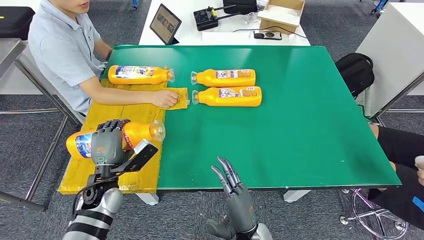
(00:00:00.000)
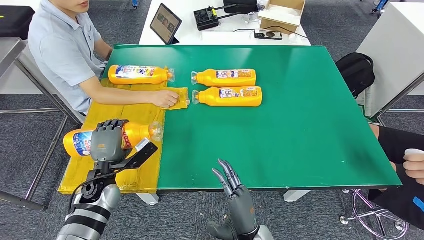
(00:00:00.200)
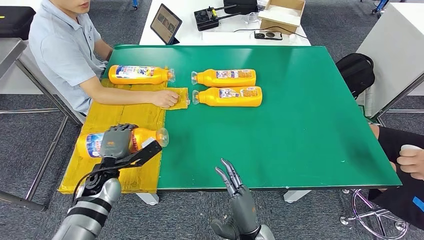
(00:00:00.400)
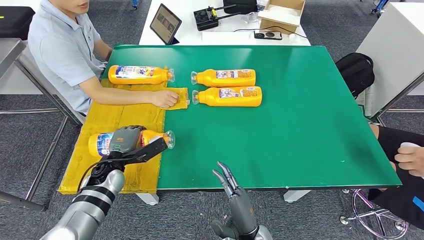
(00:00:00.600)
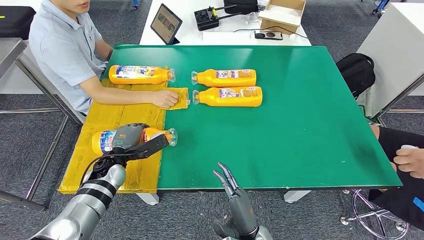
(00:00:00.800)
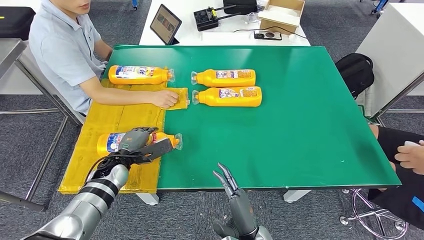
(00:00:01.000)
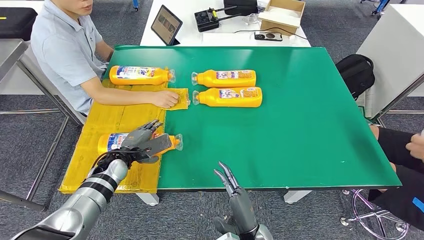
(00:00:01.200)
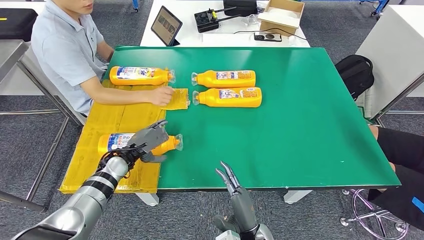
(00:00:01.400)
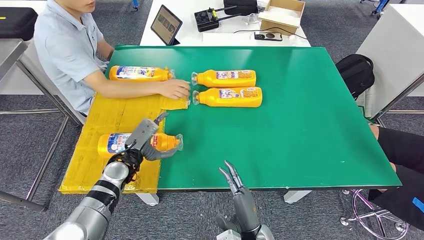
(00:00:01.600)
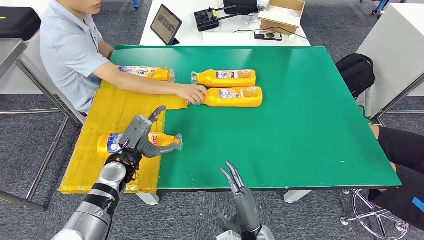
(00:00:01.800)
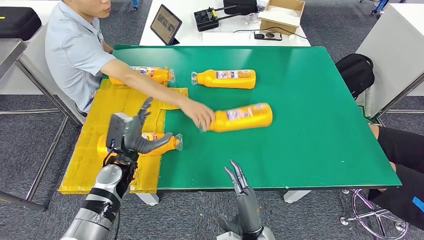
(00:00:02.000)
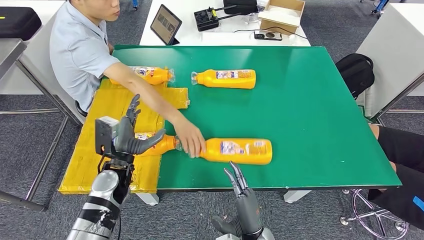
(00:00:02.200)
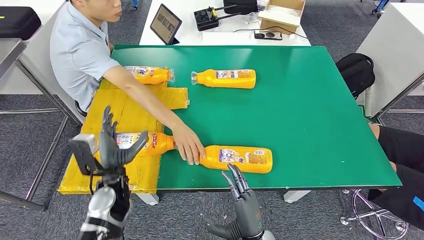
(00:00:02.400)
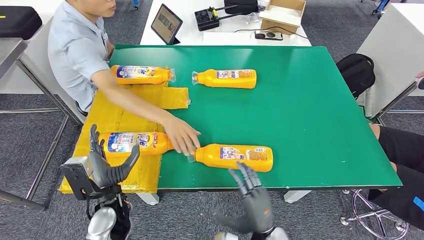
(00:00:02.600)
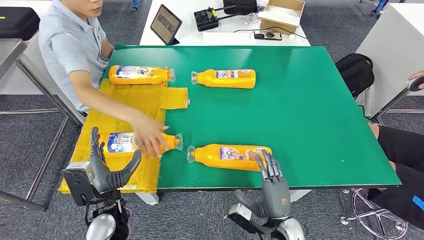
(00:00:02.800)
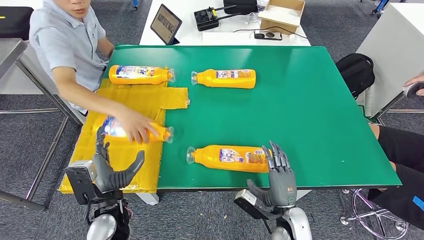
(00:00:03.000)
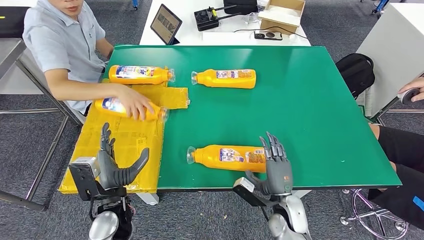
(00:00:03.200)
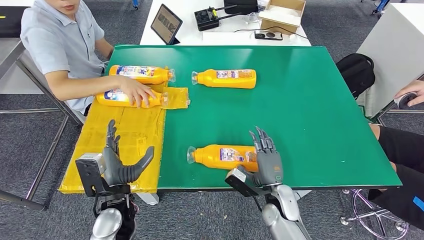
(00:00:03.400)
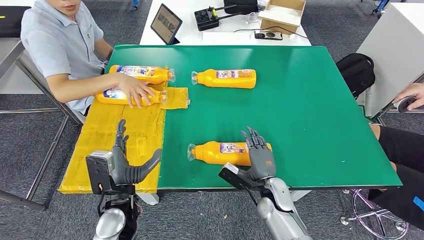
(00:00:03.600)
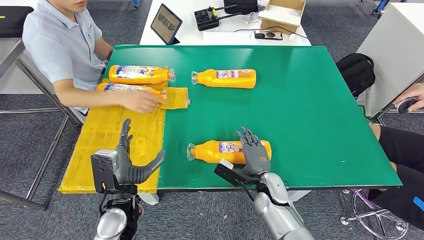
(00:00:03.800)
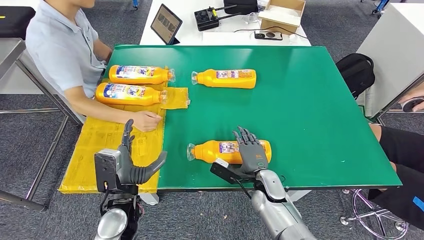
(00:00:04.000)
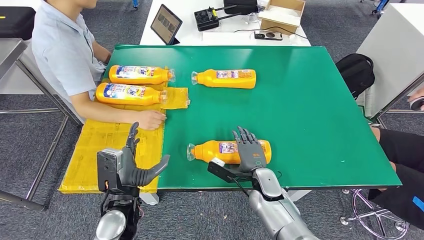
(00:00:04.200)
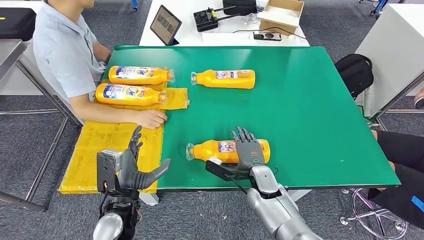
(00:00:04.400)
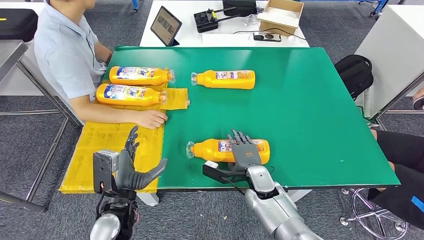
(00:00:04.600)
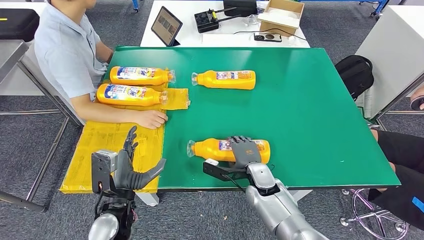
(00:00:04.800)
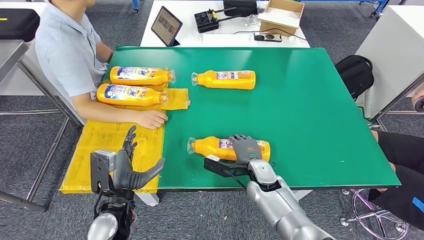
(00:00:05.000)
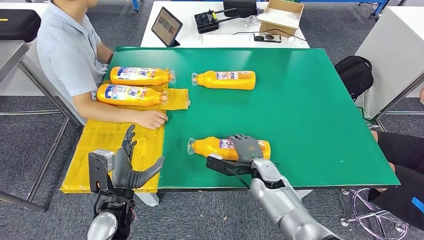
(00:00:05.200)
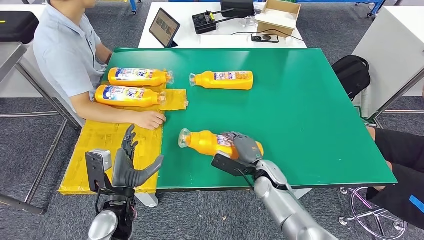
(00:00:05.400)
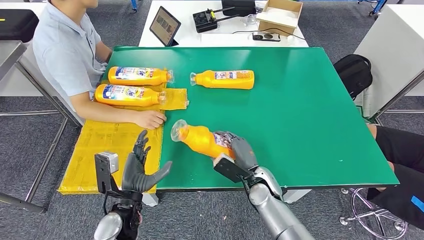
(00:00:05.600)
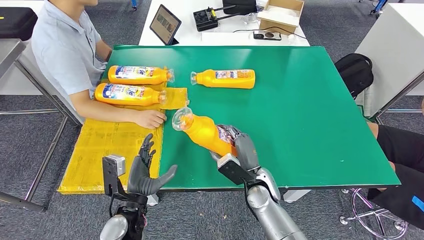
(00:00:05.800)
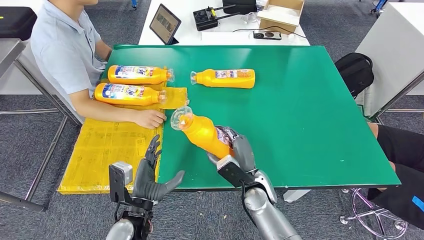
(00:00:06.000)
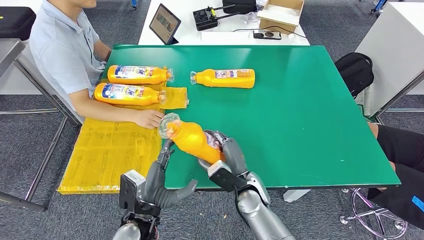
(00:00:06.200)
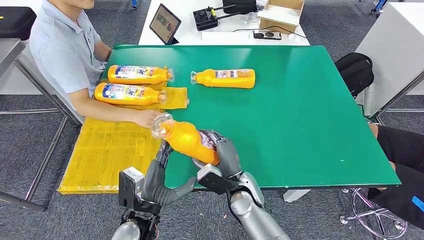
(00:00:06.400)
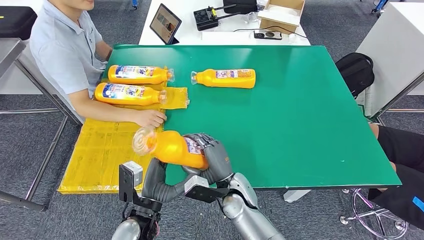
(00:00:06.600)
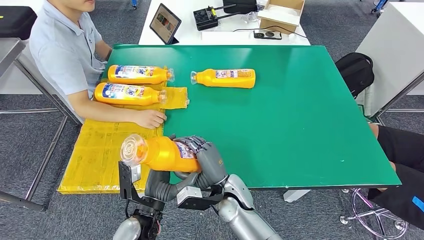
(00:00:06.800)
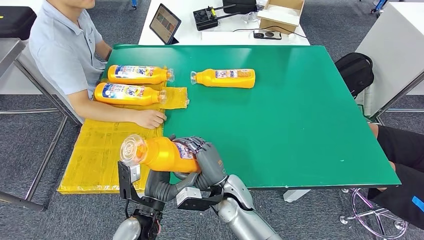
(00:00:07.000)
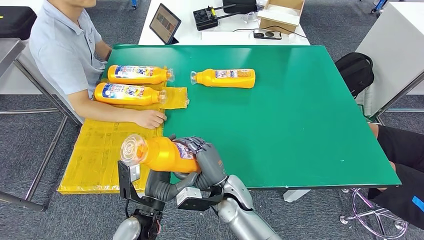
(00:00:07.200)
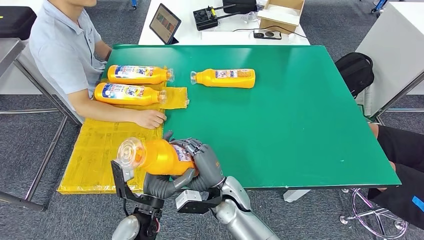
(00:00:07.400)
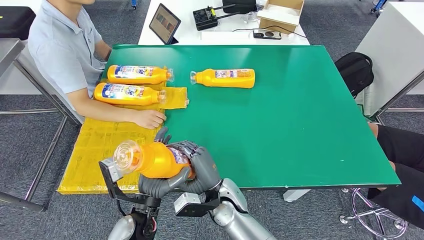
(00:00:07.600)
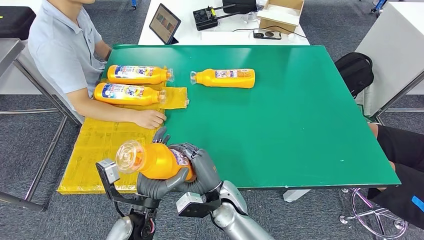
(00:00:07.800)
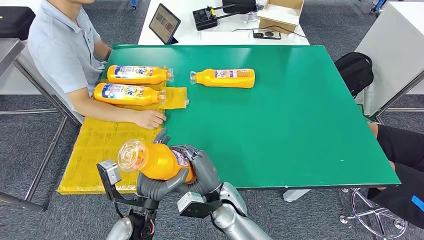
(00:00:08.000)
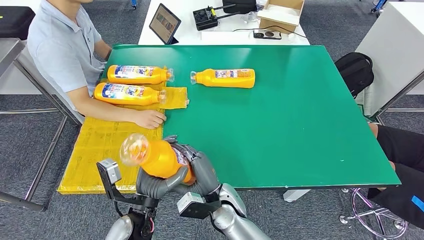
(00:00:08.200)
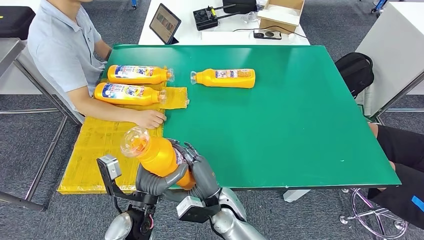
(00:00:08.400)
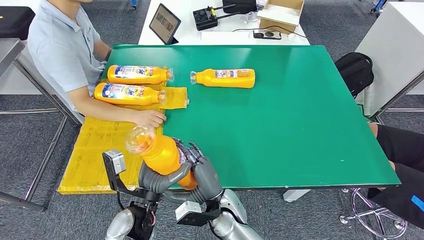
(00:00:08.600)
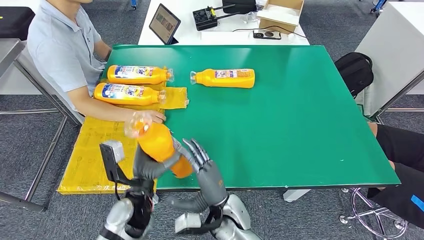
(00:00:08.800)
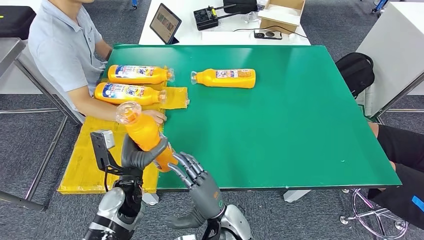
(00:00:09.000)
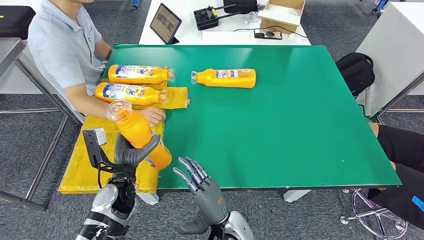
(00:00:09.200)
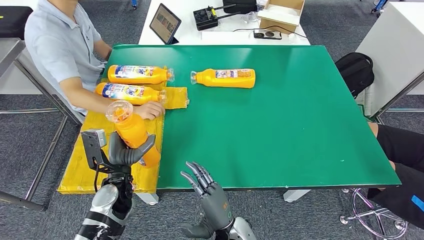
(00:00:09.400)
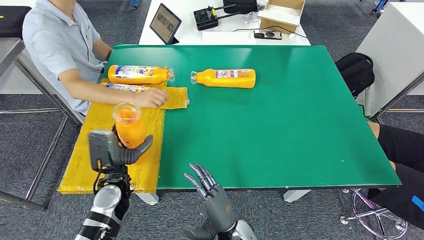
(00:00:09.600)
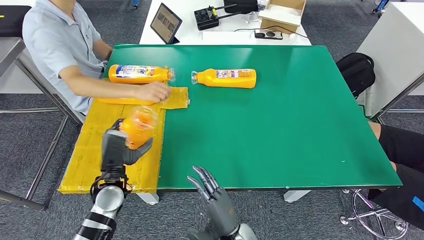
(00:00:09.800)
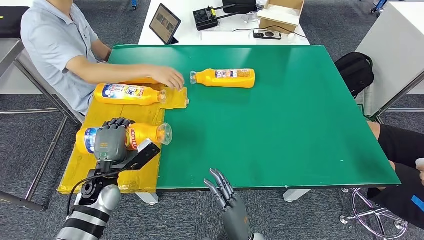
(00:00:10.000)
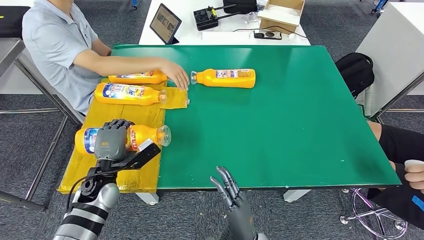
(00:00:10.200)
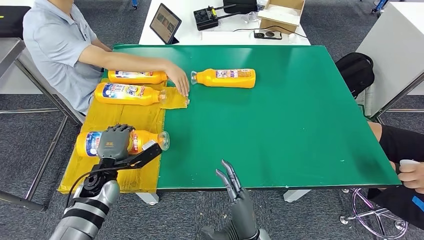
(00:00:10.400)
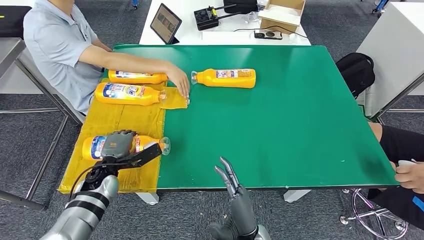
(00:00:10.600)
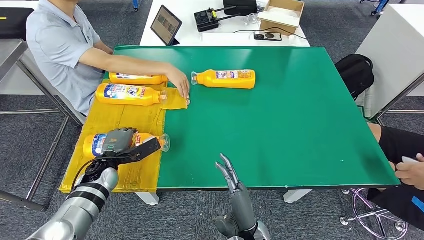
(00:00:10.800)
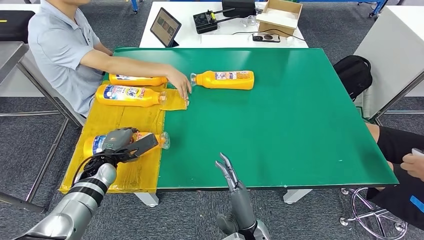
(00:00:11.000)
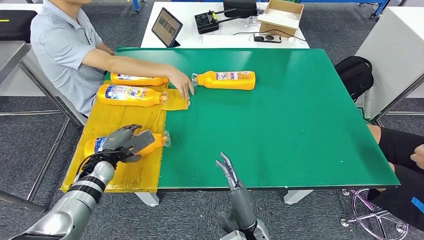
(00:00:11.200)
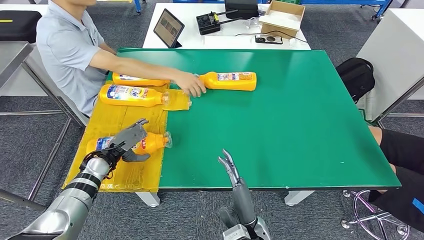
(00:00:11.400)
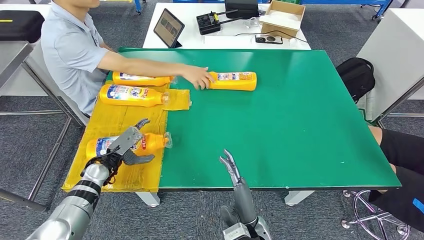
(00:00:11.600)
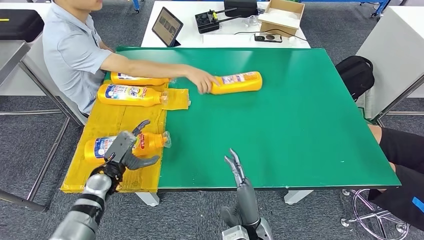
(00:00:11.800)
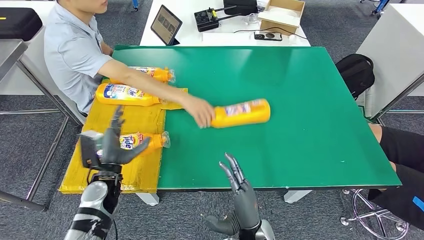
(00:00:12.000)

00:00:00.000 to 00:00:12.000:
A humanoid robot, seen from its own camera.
Step, 00:00:00.000 to 00:00:02.000: Flip the fast-moving consumer goods bottle to the front side.
Step, 00:00:02.200 to 00:00:06.400: Pick up the fast-moving consumer goods bottle from the table.
00:00:00.000 to 00:00:01.600: The left hand moves forward, approximately 5 cm.
00:00:06.000 to 00:00:07.600: The right hand goes some 10 cm to the left.
00:00:07.600 to 00:00:09.000: The right hand is displaced backward by some 5 cm. Meanwhile the left hand travels forward by about 5 cm.
00:00:09.000 to 00:00:10.400: The right hand travels backward and to the right by about 10 cm. The left hand is displaced to the left by roughly 10 cm.

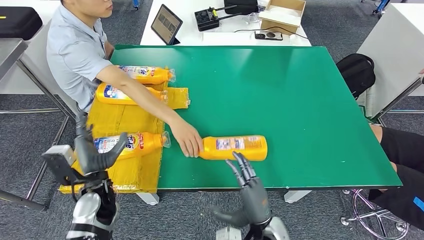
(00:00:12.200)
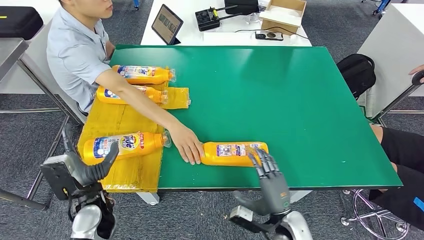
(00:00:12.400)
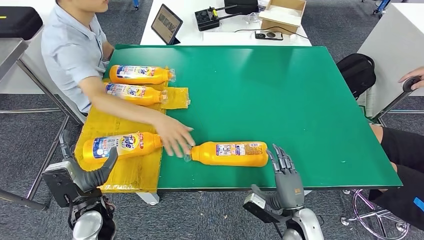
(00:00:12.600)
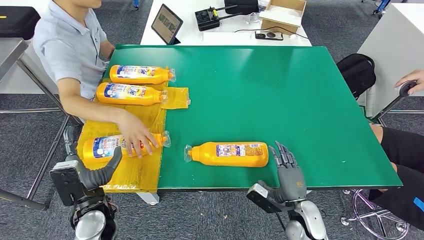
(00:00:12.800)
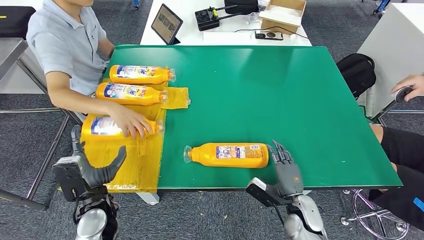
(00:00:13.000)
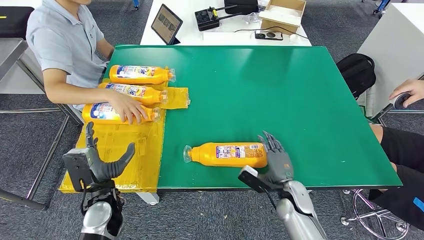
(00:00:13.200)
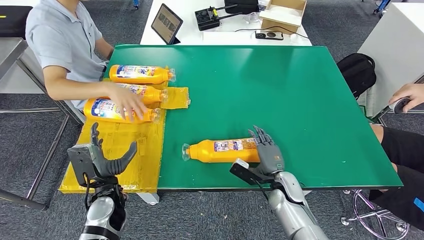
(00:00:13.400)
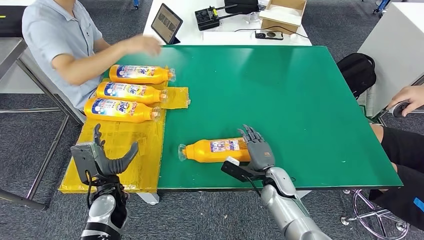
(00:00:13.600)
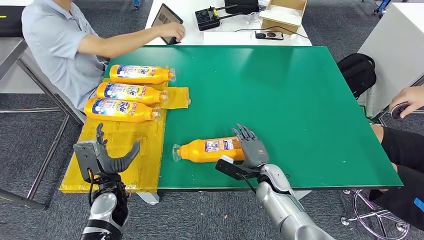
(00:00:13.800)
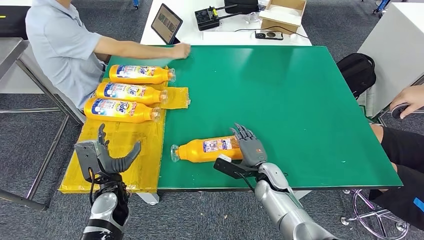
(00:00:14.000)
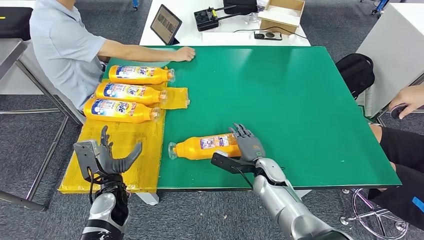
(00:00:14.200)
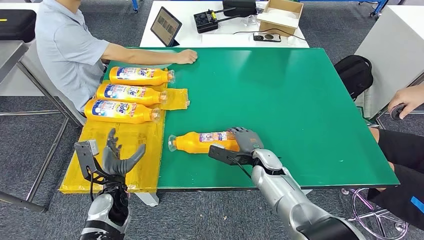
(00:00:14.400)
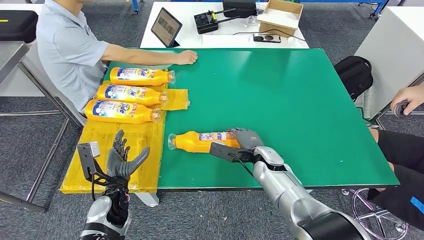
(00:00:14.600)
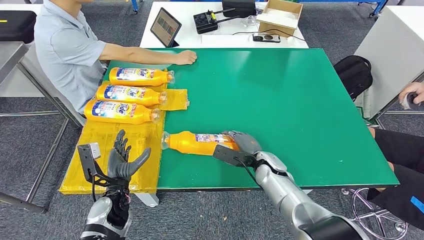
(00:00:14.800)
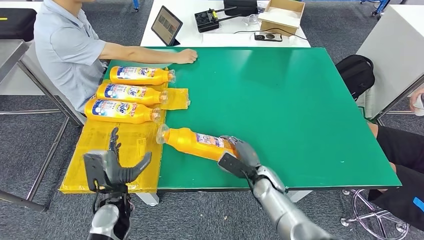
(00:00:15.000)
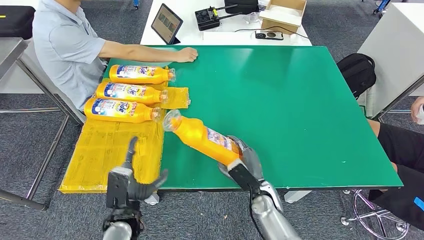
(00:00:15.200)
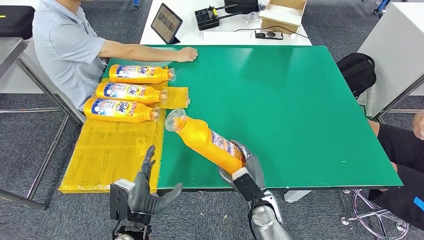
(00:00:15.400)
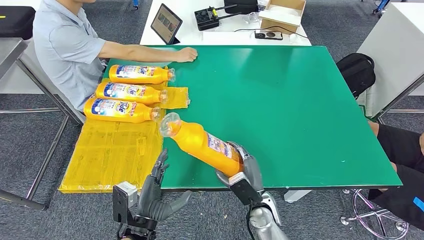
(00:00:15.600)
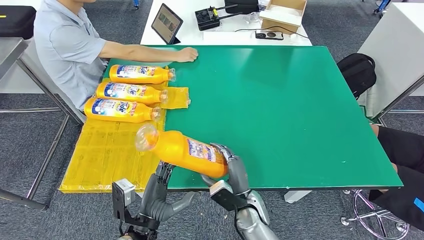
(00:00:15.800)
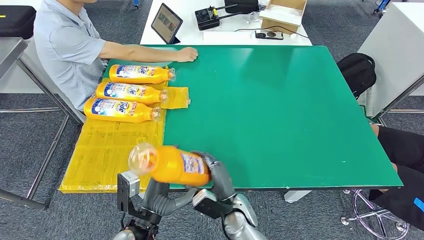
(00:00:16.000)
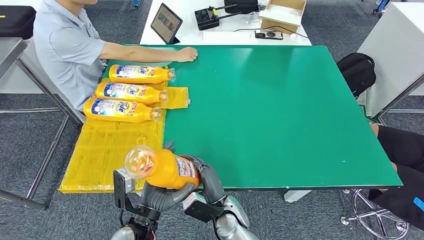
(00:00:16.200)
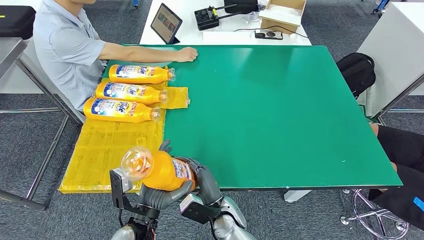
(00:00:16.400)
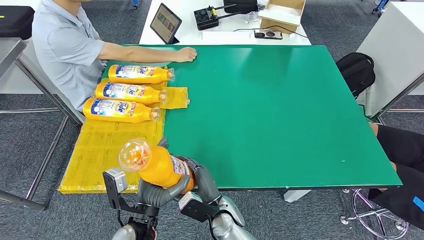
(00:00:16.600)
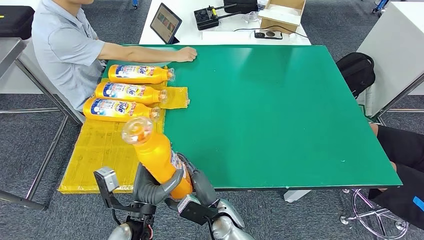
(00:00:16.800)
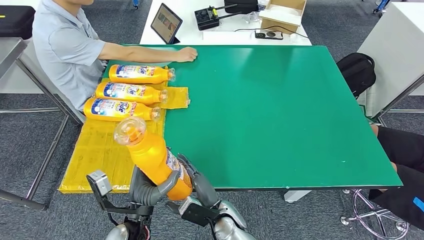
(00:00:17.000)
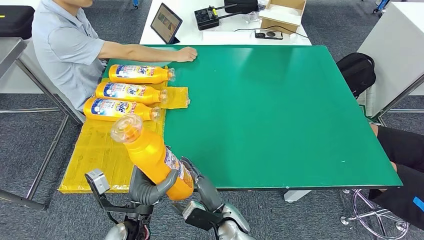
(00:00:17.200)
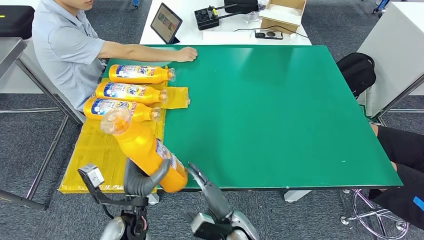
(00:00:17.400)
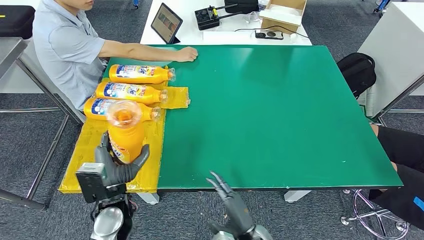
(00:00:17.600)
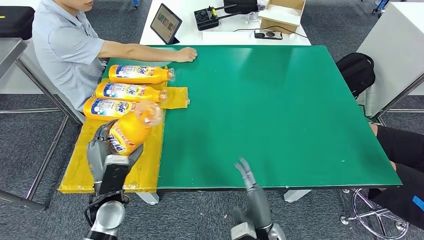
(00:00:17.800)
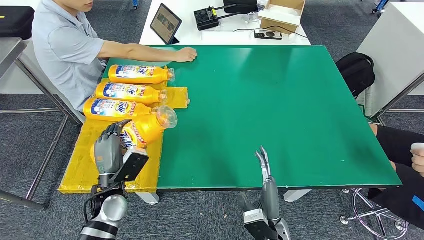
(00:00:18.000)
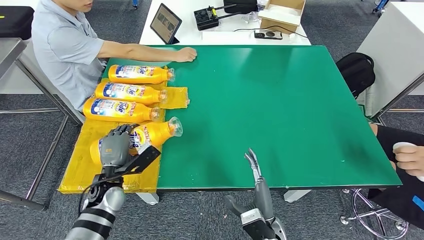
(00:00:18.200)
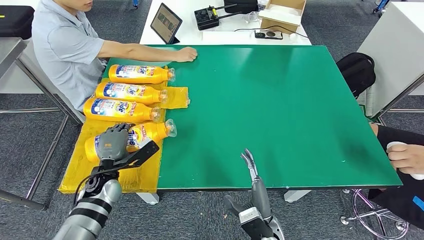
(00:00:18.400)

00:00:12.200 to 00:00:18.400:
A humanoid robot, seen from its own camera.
Step, 00:00:12.400 to 00:00:15.600: Pick up the fast-moving consumer goods bottle from the table.
00:00:15.400 to 00:00:16.800: The right hand goes approximately 10 cm to the left.
00:00:16.800 to 00:00:18.400: The left hand is displaced forward and to the left by roughly 20 cm; the right hand shifts some 10 cm to the right.
